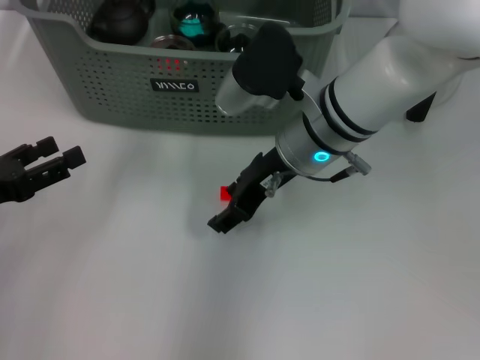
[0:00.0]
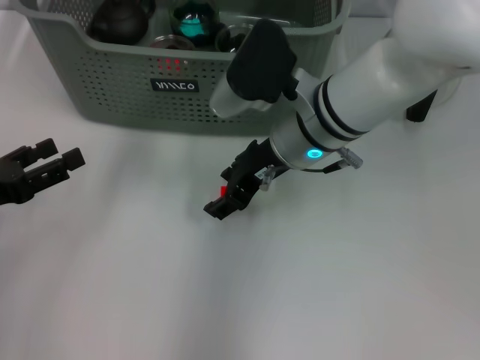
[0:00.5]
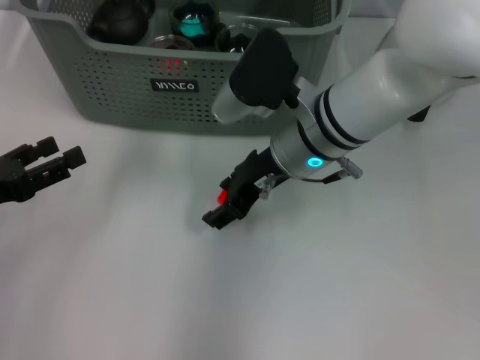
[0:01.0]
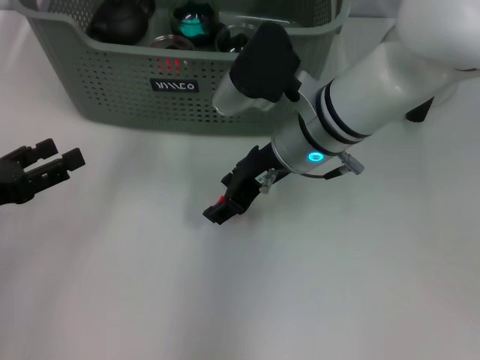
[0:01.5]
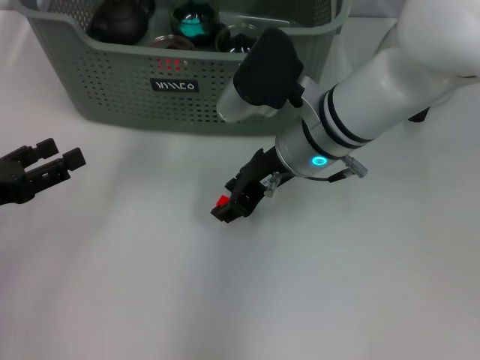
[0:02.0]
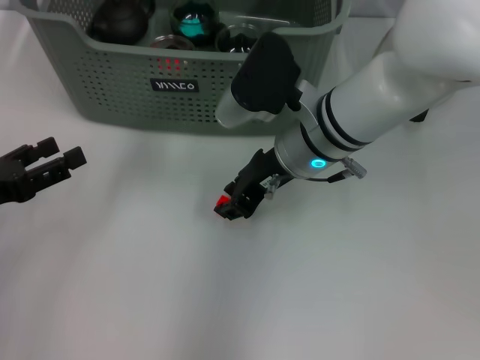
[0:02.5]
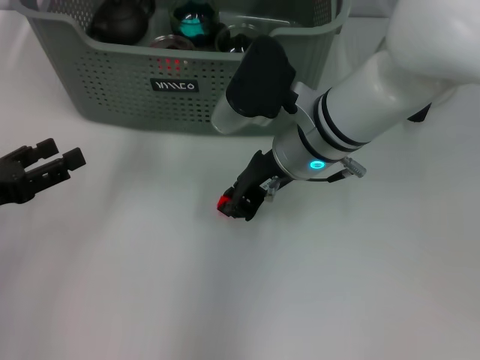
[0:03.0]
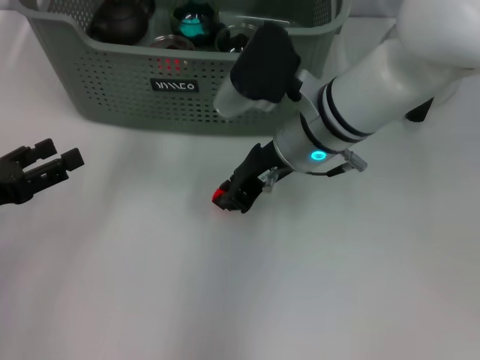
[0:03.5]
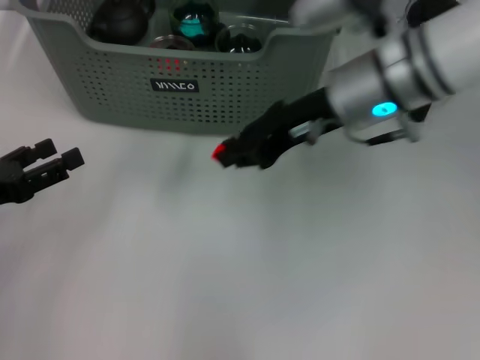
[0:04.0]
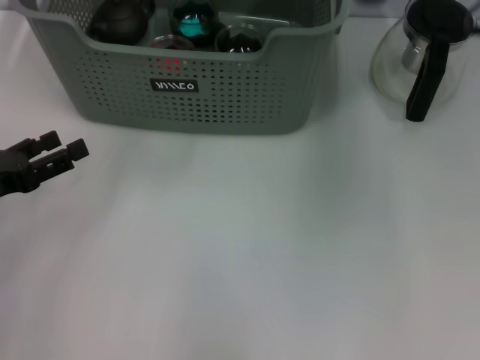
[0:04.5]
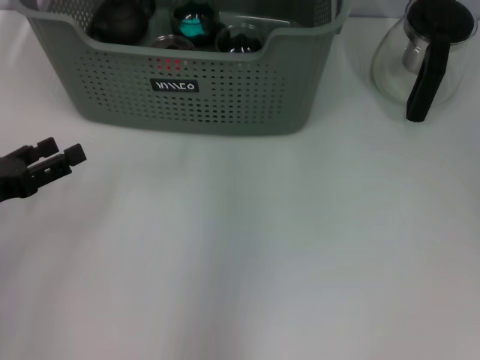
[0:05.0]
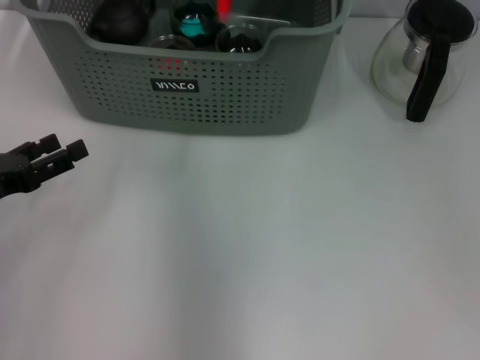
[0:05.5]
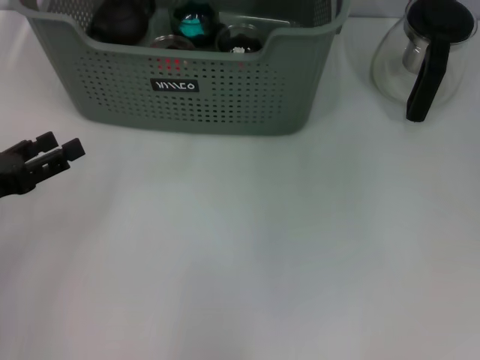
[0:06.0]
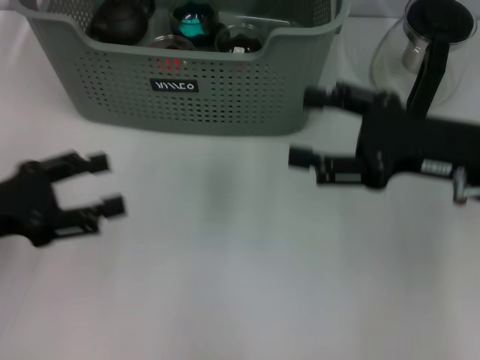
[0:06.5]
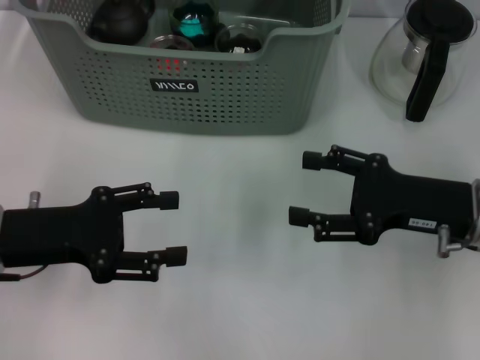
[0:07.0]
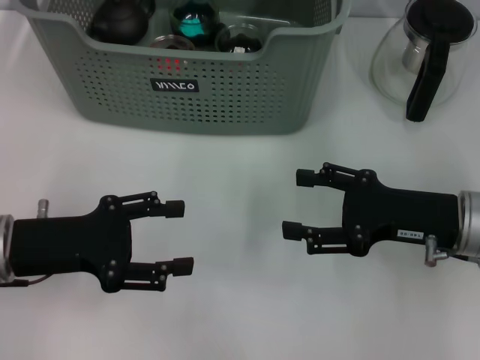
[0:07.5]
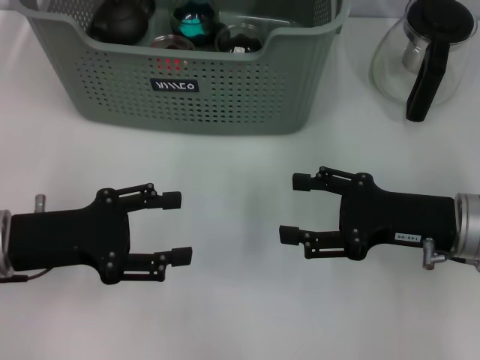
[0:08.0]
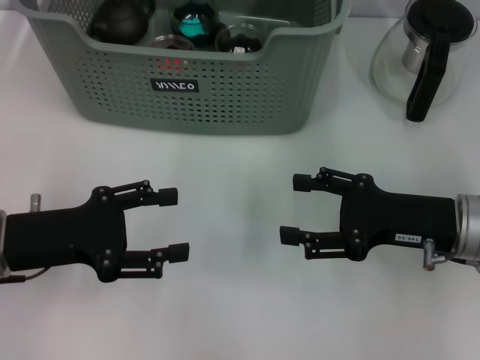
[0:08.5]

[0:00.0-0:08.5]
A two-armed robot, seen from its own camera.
Task of the whole recording: pick up the teacup on the table and place it into the storage bin, pick up the block on the table and place it into the storage bin.
Step, 0:00.0 to 0:03.0: Grasp the orange block with right gripper.
Step, 0:03.5 to 0:05.5: Place the orange block in the storage box with right gripper.
0:00.0 to 0:02.0: There are only small adjustments of the grippers.
0:02.0 to 0:04.0: The right gripper heads upward and to the right, covering some 10 cm, and closes up.
0:04.0 to 0:06.5: The right gripper moves left and right over roughly 20 cm, changing direction 2 times, and opens.
0:06.5 to 0:08.5: The left gripper moves to the right, roughly 5 cm, while the right gripper is displaced downward by approximately 5 cm.
